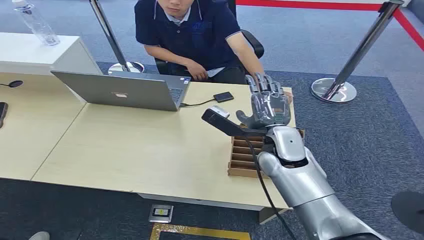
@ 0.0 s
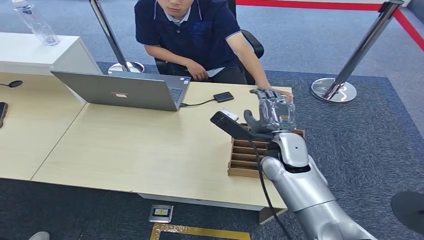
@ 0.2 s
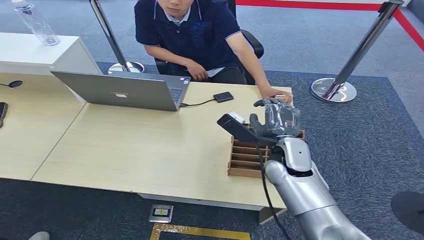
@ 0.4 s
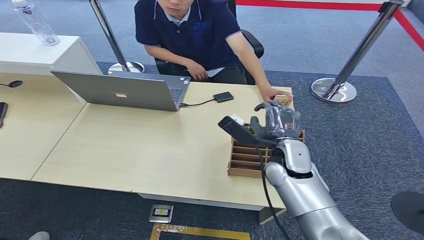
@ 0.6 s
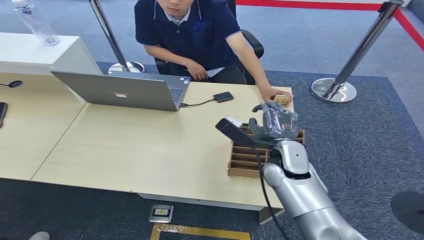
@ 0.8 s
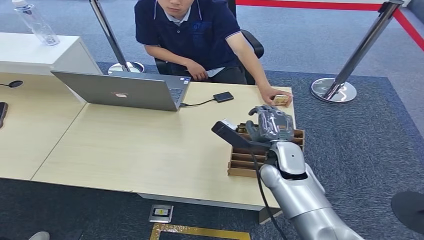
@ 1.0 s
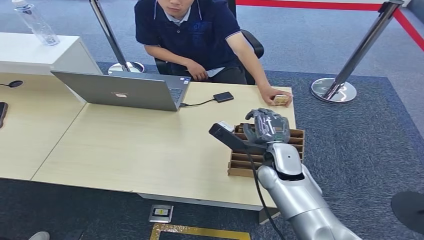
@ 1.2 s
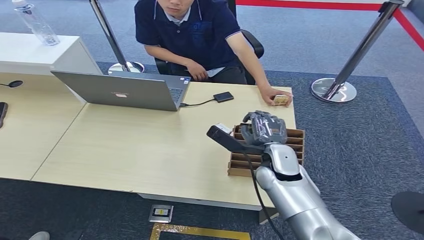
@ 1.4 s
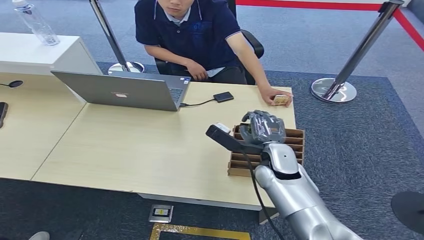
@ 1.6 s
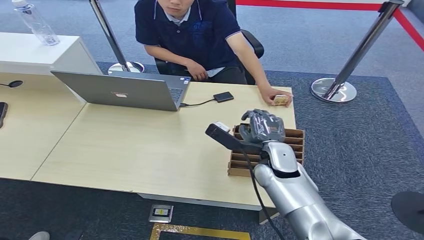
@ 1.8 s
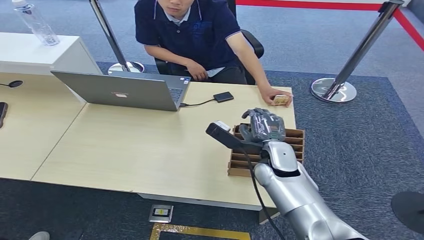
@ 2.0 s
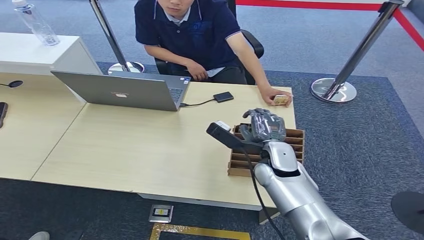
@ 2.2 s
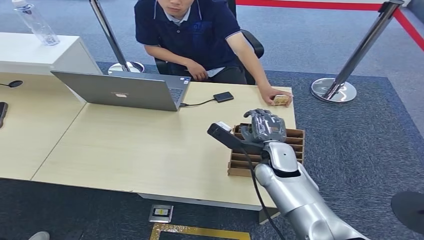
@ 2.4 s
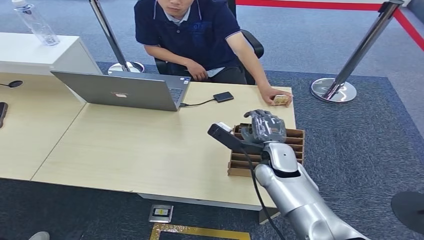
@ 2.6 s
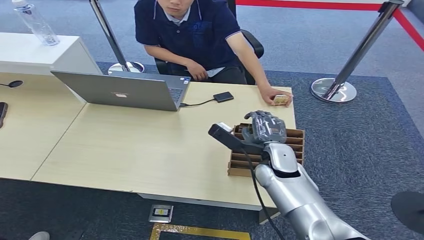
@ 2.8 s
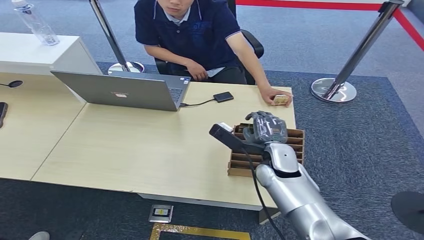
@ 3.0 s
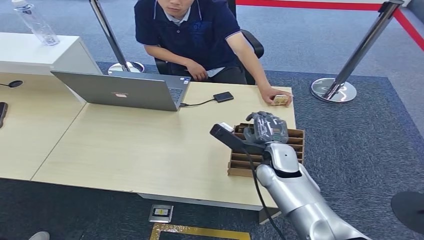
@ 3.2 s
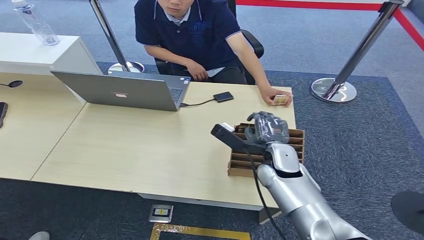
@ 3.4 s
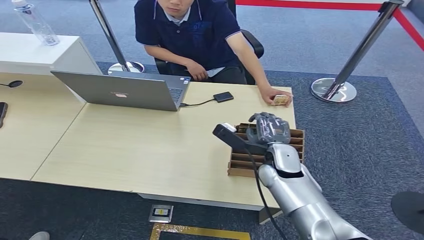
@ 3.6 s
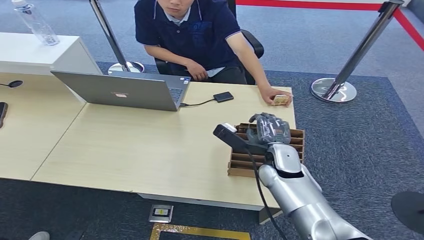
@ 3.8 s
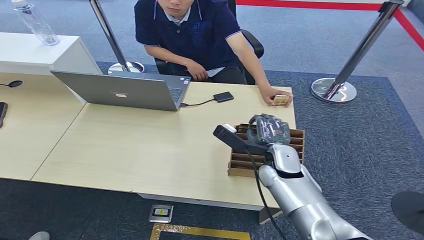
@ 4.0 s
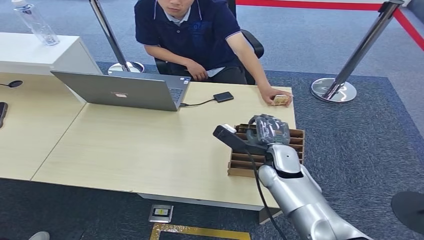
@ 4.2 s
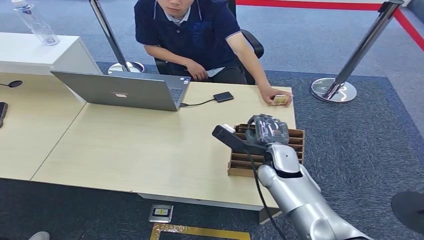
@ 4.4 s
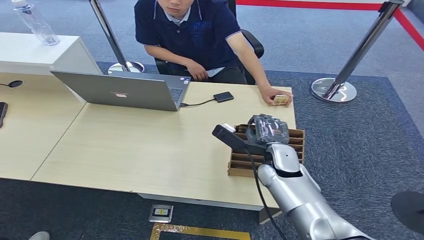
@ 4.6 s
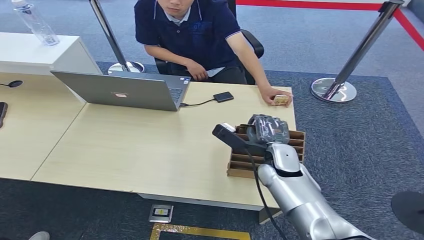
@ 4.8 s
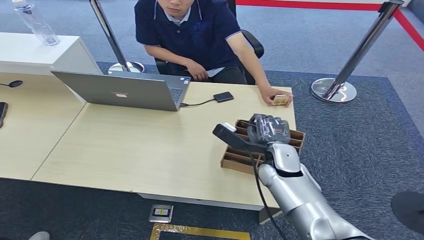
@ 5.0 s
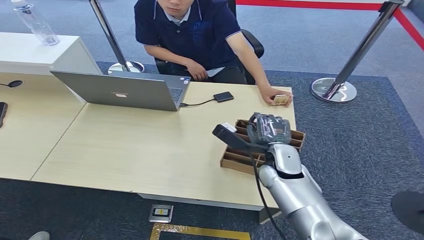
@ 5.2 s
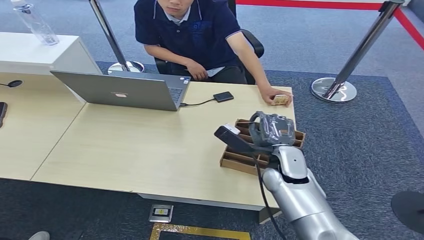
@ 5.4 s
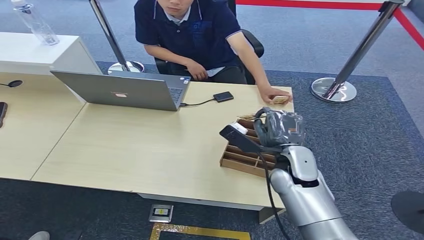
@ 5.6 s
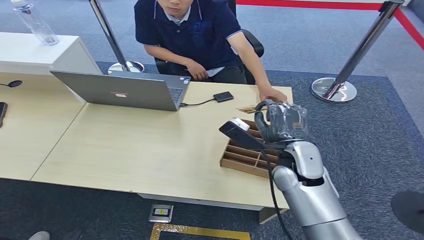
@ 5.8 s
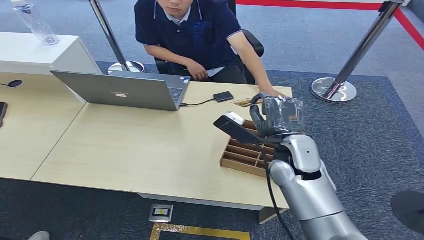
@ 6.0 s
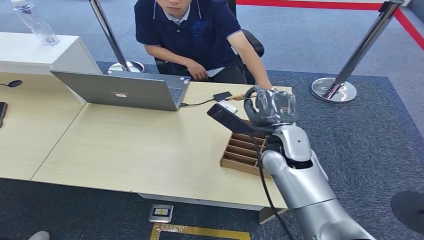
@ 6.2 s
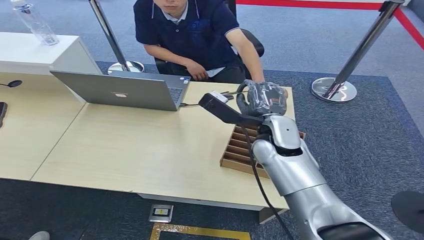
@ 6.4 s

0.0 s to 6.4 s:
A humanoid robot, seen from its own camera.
Step, 0.0 to 5.2 s: Pick up the key card from the card box.
Step, 5.4 to 6.4 s: Hand the key card to the target.
1.6 to 3.2 s: Neither hand changes place.
3.2 to 4.8 s: Both hands stay about where they are.
4.8 to 6.4 s: The right hand goes approximately 10 cm upward.
